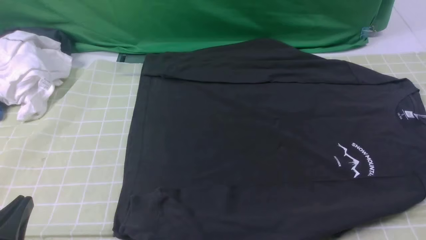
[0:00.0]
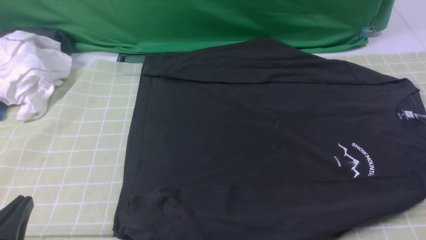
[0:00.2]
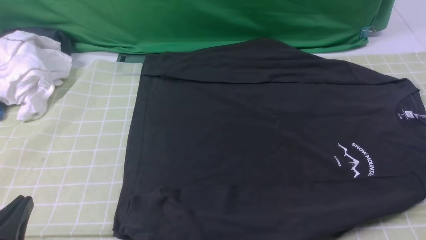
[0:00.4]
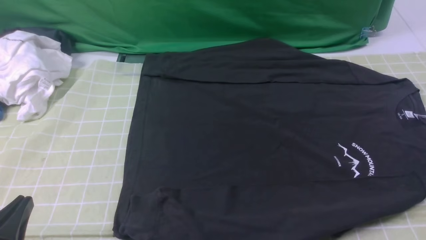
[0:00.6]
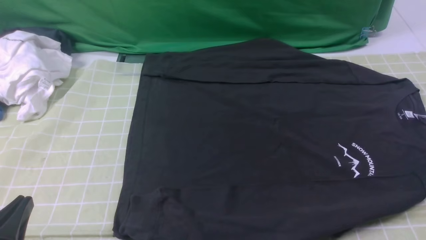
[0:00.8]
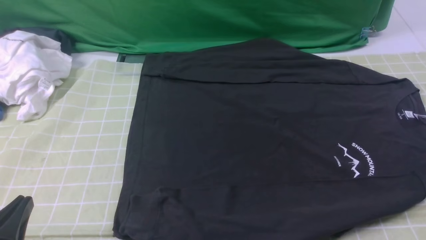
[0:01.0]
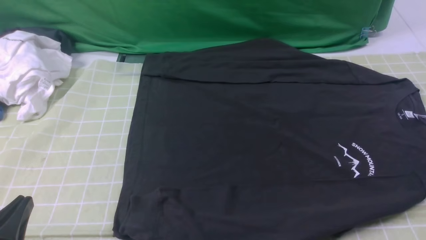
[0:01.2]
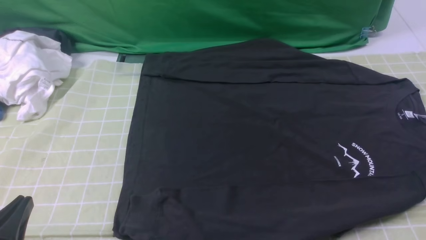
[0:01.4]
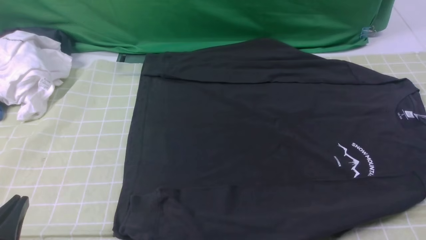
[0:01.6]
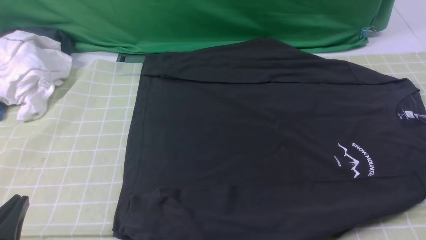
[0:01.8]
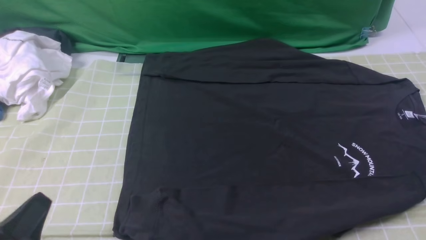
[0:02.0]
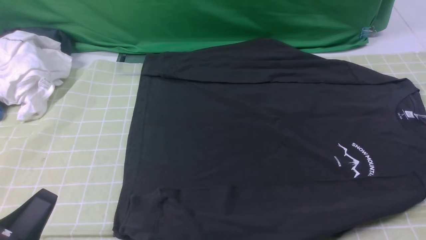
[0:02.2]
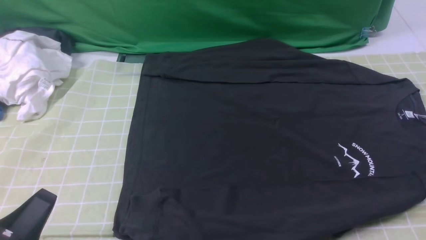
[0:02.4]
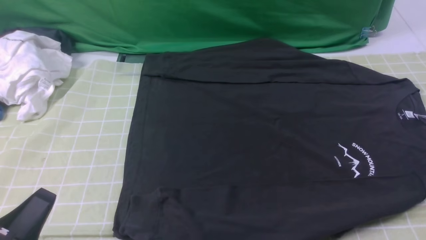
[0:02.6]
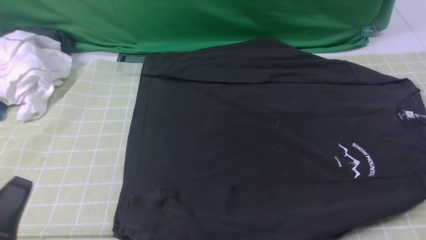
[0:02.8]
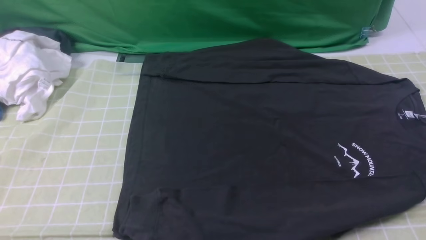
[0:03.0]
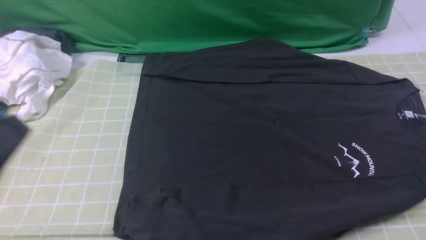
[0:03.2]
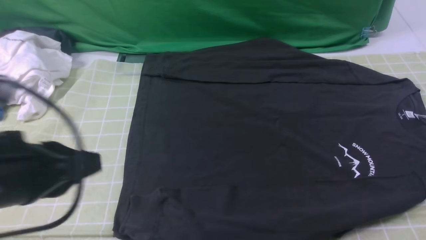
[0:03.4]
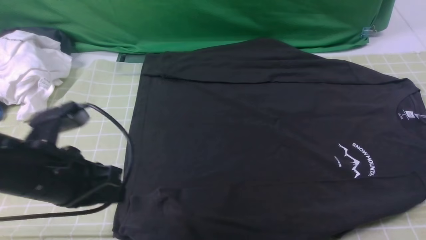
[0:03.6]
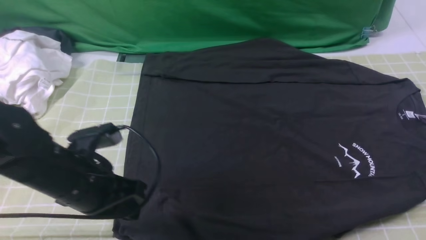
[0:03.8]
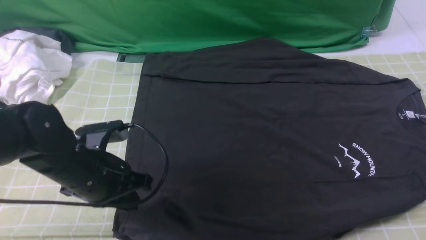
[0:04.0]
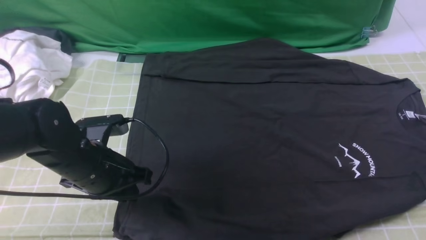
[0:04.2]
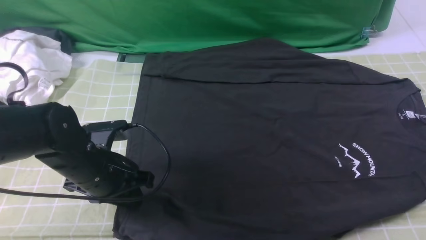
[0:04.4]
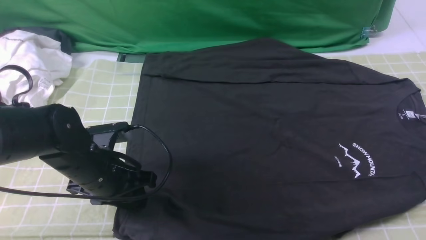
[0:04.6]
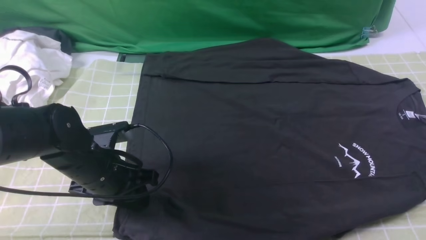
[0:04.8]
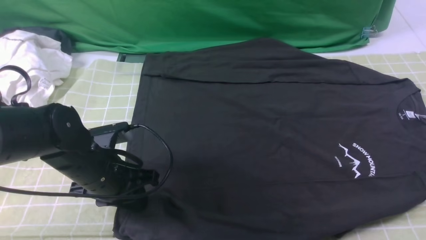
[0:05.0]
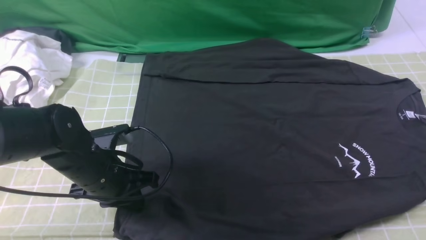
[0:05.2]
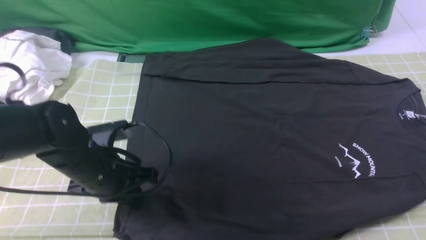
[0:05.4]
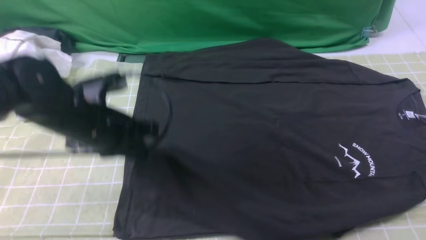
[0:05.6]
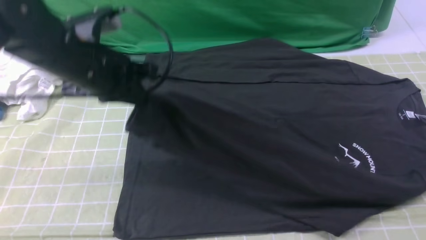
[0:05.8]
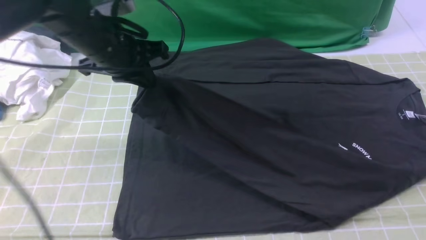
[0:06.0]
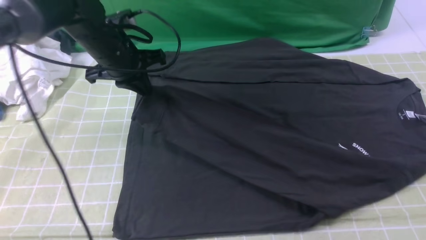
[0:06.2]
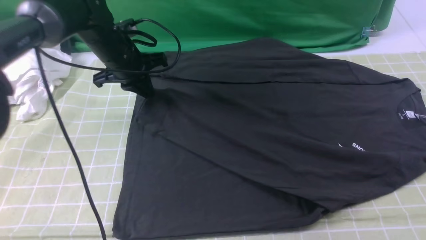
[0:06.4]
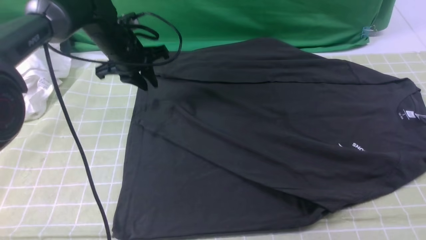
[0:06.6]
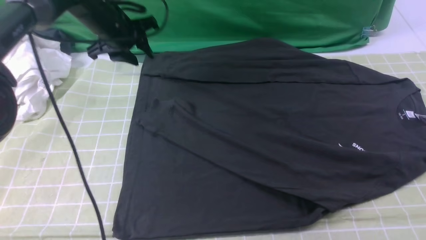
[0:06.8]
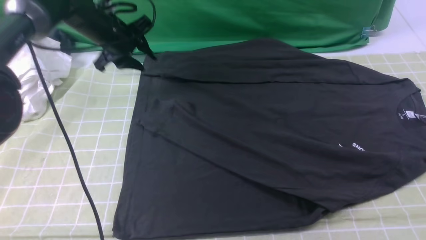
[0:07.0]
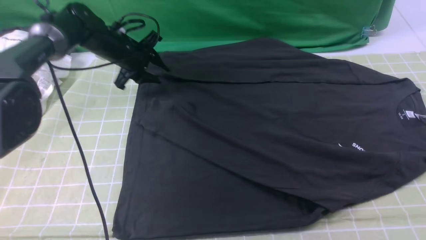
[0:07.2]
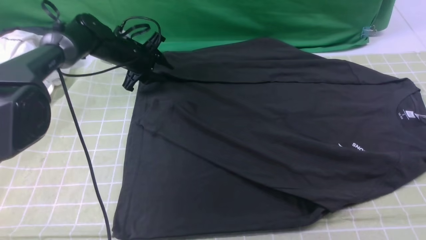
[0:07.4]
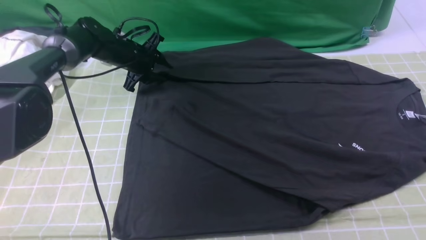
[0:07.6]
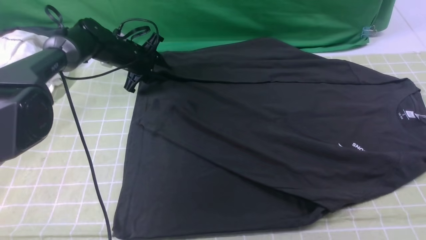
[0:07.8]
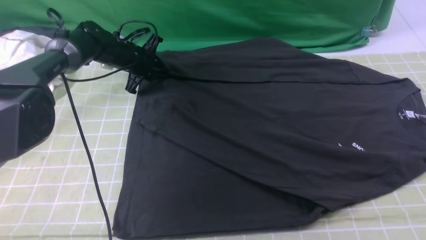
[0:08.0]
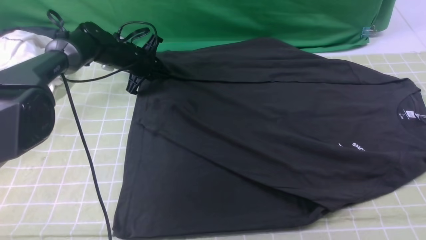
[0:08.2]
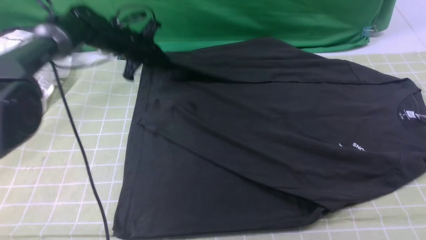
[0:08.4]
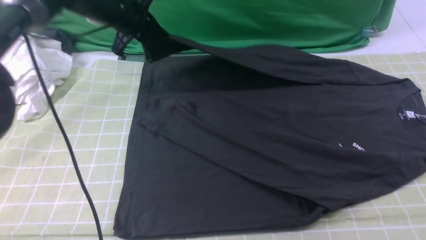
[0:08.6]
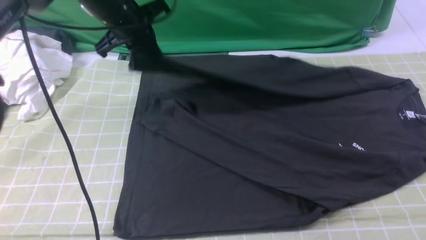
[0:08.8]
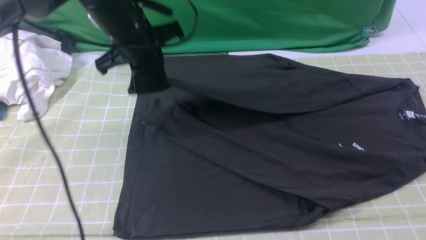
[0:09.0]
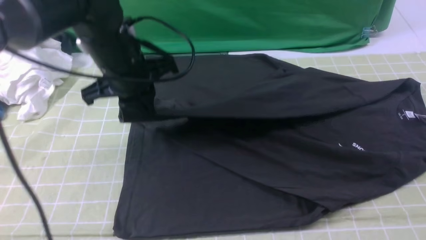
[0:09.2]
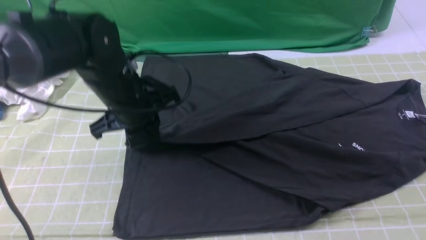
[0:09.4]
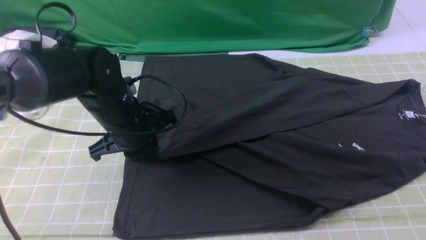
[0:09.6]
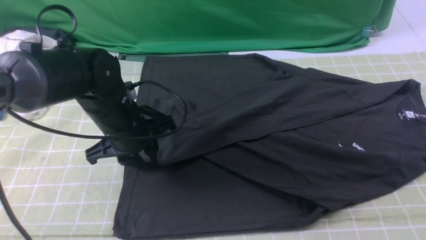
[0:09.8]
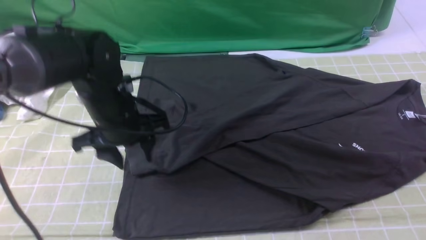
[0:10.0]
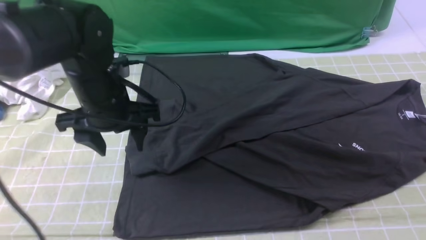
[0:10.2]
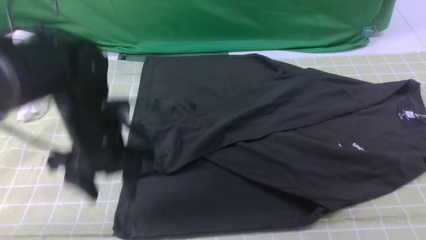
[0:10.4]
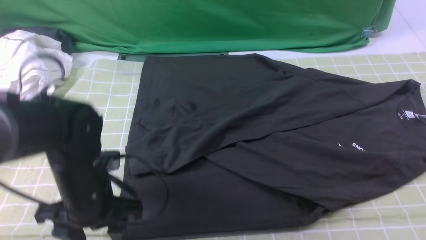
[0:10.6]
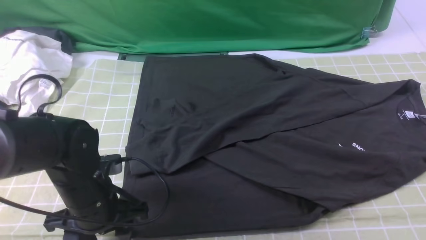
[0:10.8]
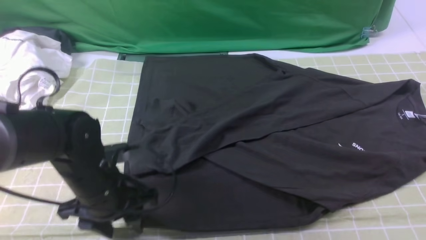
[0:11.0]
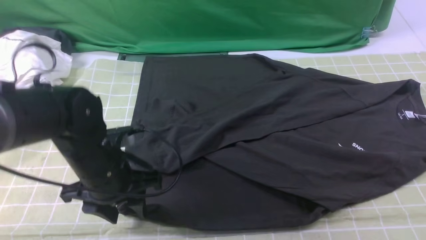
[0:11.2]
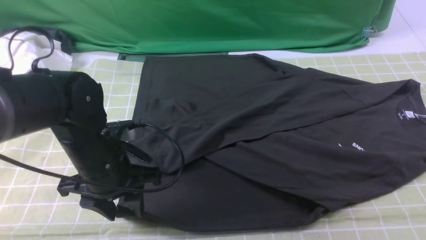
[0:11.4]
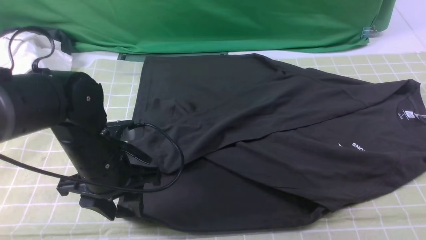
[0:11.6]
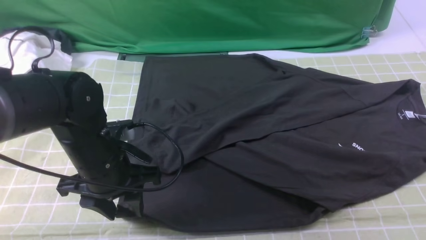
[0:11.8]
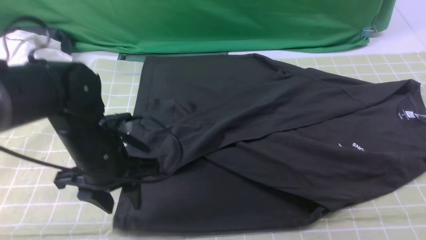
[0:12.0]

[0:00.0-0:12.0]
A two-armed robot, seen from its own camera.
Step, 0:00.0 to 0:05.2: use the left arm to clamp the cuff closest to it.
Step, 0:05.4 to 0:06.6: use the left arm to drag and place the cuff at the centered position on the left edge of the fabric.
Step, 0:06.8 to 0:08.2: use the left arm to clamp the cuff farthest from it.
Step, 0:08.4 to 0:09.8: use the left arm to drag and drop the cuff onto the cuff closest to the left arm.
0:00.0 to 0:01.6: Neither gripper changes place.
0:01.6 to 0:03.0: The left gripper moves upward, approximately 10 cm.
0:03.0 to 0:04.4: The left gripper shifts approximately 25 cm forward and downward, and opens its fingers; the right gripper heads forward, covering some 10 cm.
0:04.4 to 0:06.0: The left gripper moves forward and upward, roughly 15 cm, and closes up.
0:06.0 to 0:07.6: The left gripper travels forward and downward by roughly 20 cm, and opens.
0:07.6 to 0:09.0: The left gripper travels upward, backward and to the right by approximately 20 cm, and closes up.
0:09.0 to 0:10.4: The left gripper goes approximately 15 cm backward and downward, and opens its fingers.

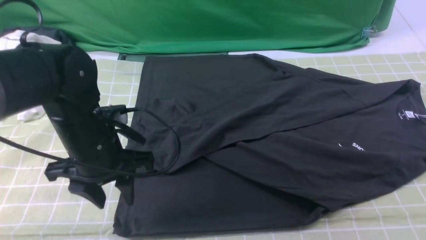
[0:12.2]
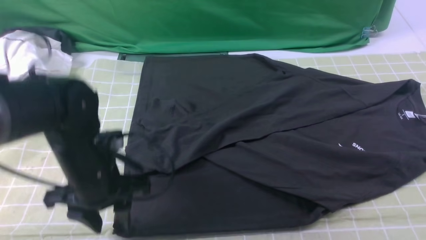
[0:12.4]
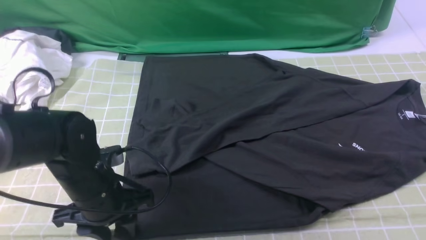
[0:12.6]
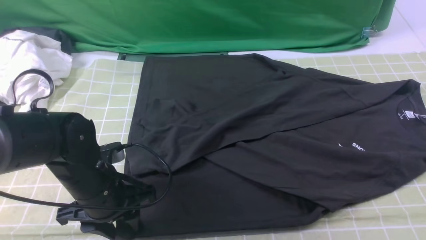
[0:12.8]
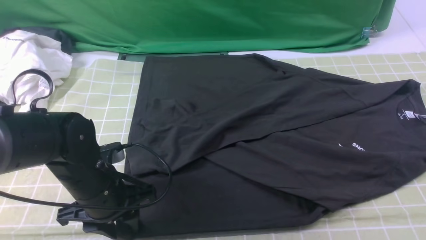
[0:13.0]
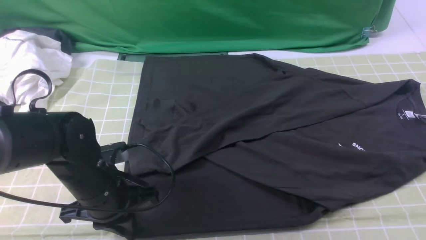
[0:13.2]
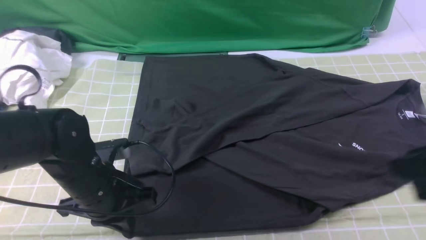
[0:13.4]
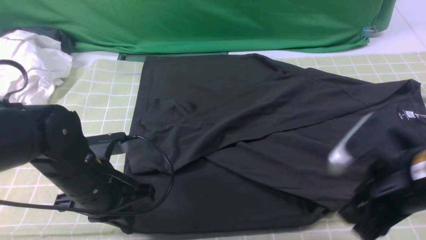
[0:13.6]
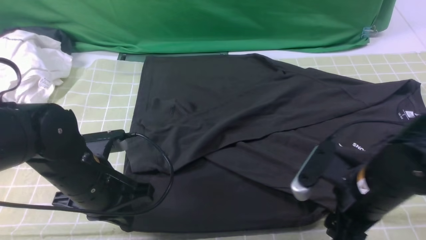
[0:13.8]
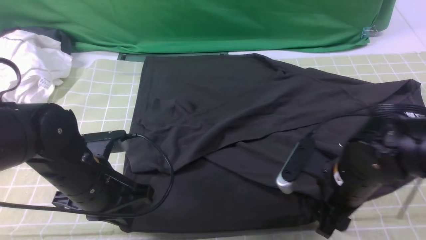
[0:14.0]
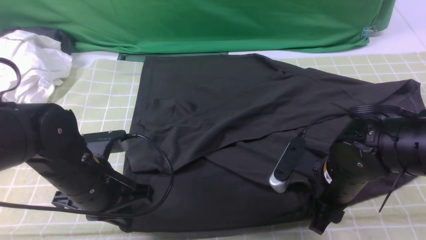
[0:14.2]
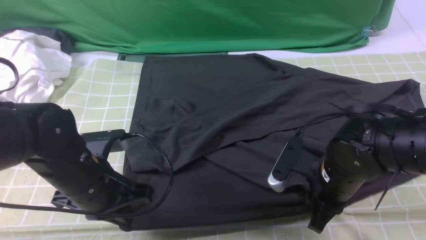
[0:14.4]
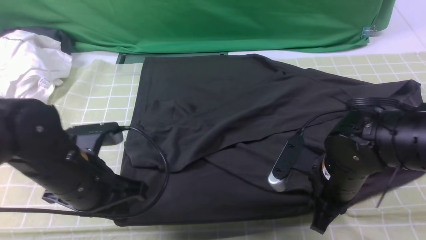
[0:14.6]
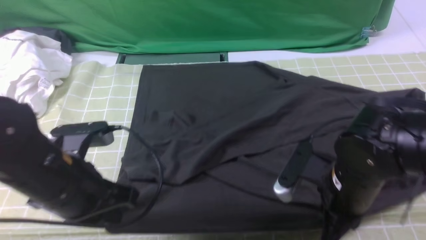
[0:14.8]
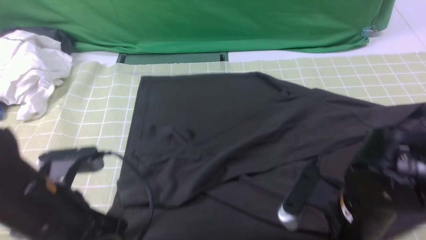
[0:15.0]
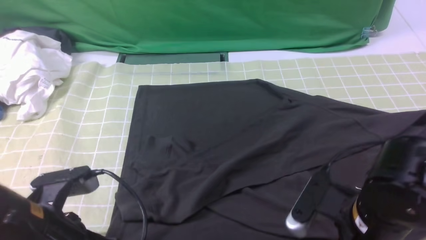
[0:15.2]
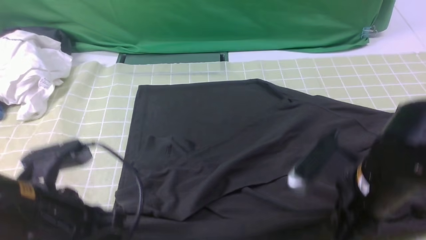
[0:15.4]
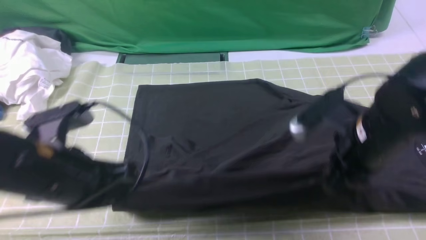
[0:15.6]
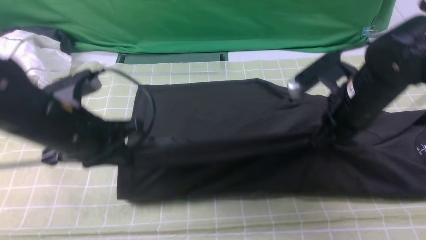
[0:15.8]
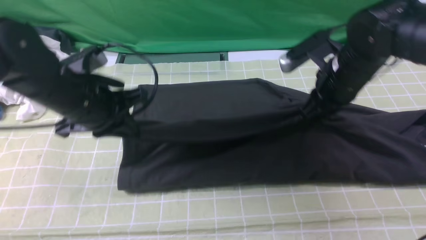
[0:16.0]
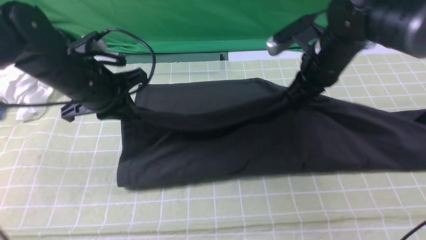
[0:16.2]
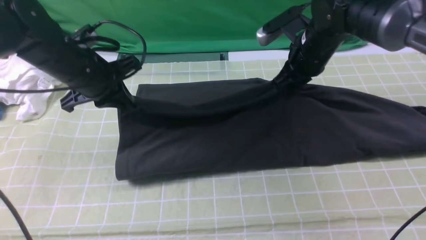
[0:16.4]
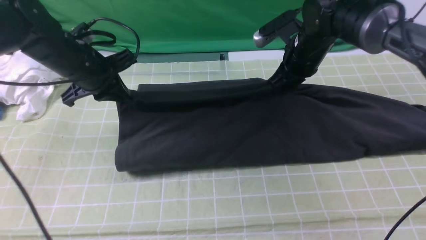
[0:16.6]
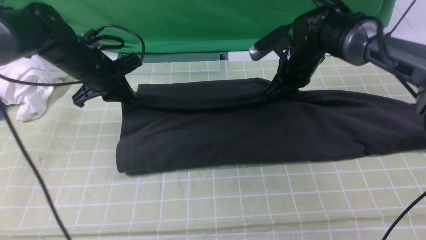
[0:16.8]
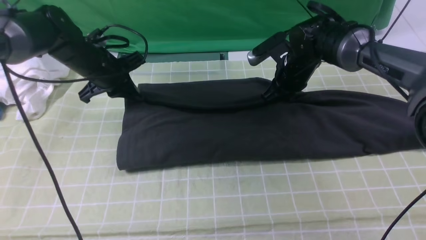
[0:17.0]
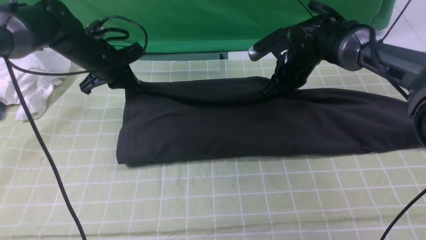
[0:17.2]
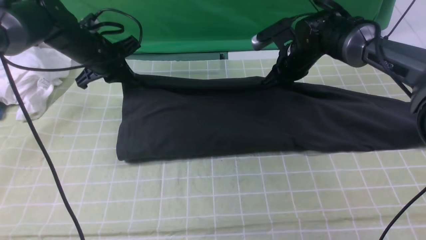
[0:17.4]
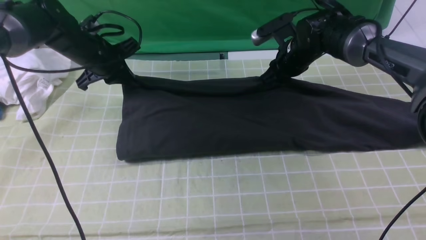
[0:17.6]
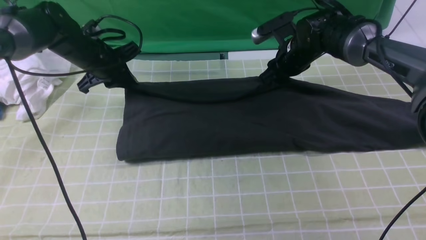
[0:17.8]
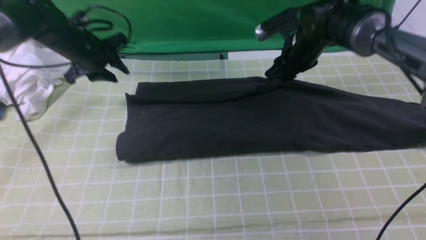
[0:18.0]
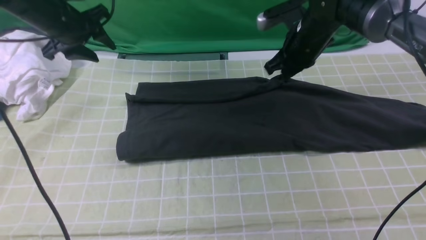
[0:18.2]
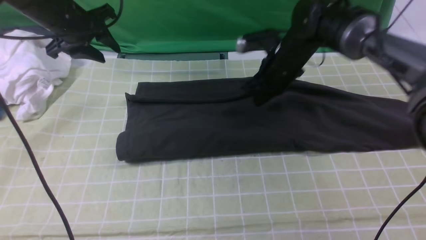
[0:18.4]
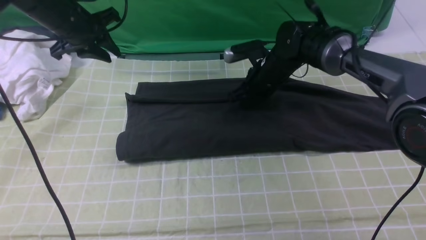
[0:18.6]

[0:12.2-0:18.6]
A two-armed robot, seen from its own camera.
Step, 0:12.2 to 0:14.4: use both arms simultaneously to clamp the lower edge of the clothing fabric.
0:12.2 to 0:13.8: The left gripper closes its fingers. The right gripper is displaced downward, to the left and forward by about 20 cm, and opens its fingers.
0:13.8 to 0:15.4: The right gripper closes its fingers. The left gripper shifts approximately 10 cm backward and upward.
0:15.4 to 0:17.0: The two grippers go approximately 30 cm forward.
0:17.0 to 0:18.6: The right gripper opens, then closes again. Meanwhile the left gripper travels upward by approximately 5 cm, and opens its fingers.
